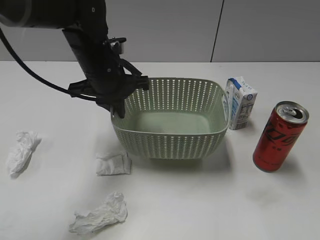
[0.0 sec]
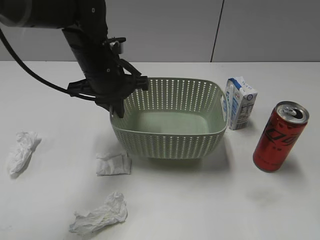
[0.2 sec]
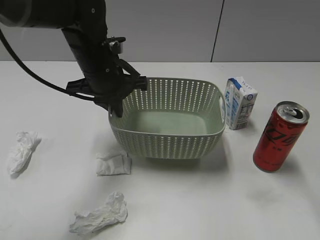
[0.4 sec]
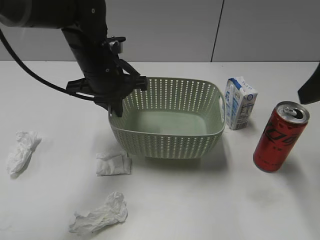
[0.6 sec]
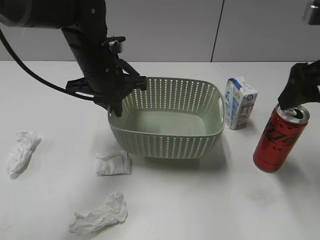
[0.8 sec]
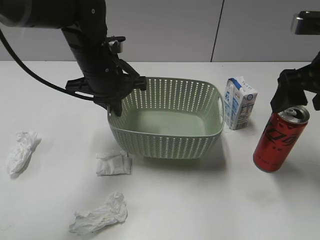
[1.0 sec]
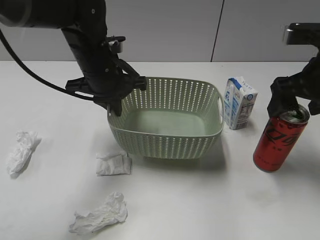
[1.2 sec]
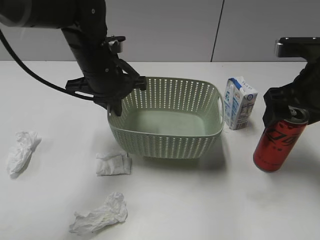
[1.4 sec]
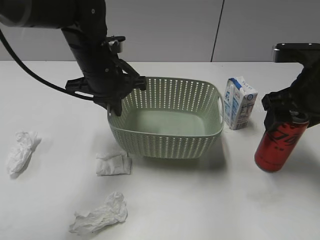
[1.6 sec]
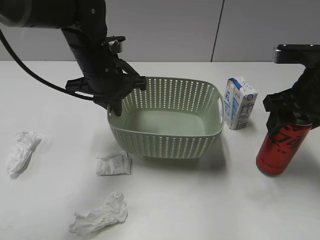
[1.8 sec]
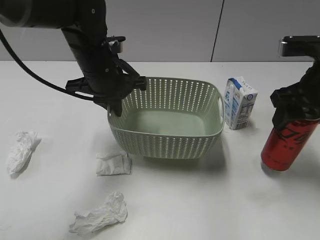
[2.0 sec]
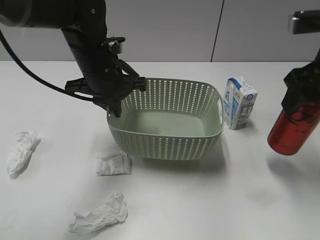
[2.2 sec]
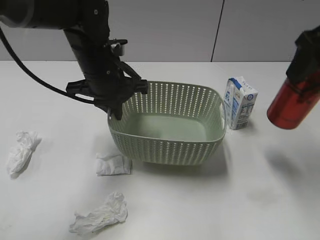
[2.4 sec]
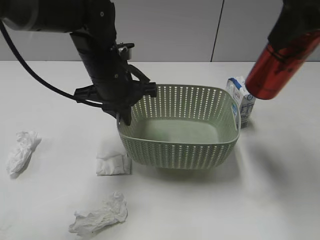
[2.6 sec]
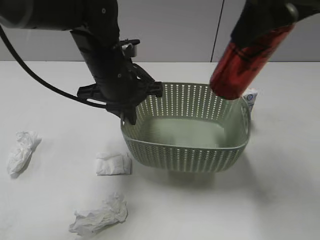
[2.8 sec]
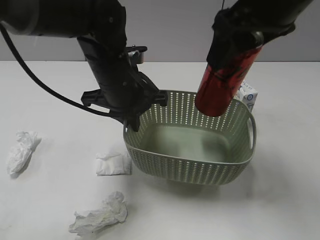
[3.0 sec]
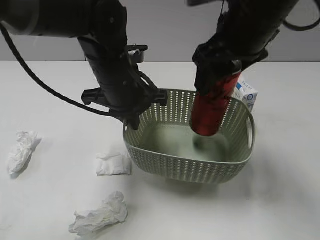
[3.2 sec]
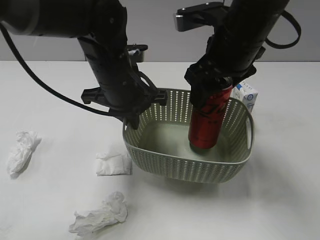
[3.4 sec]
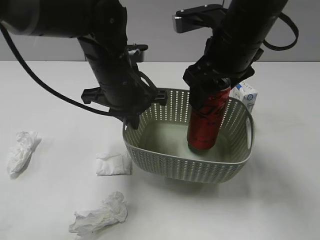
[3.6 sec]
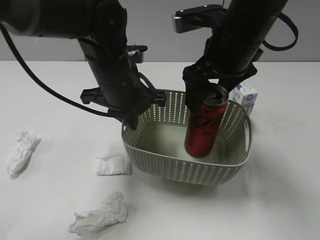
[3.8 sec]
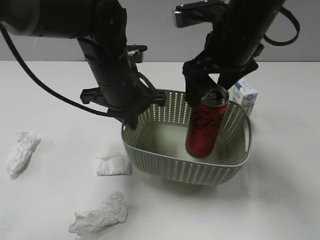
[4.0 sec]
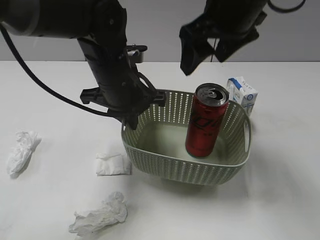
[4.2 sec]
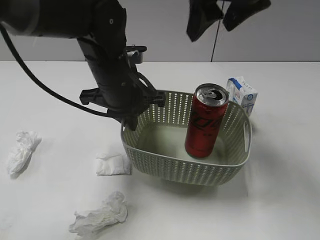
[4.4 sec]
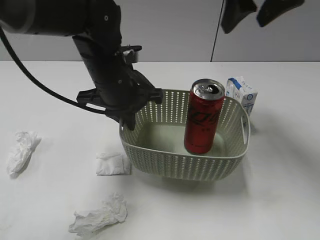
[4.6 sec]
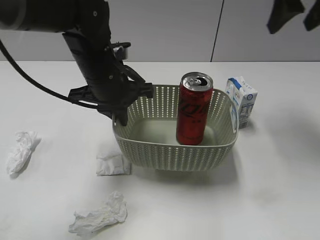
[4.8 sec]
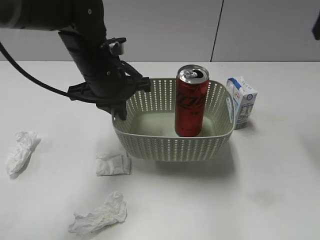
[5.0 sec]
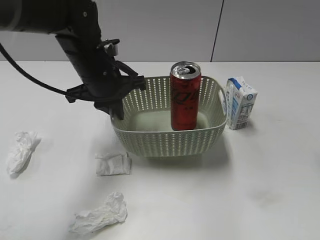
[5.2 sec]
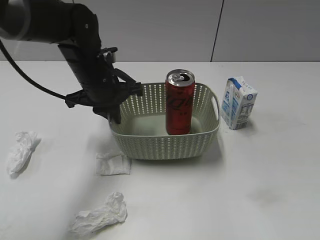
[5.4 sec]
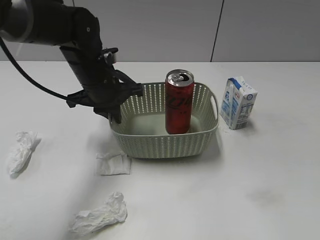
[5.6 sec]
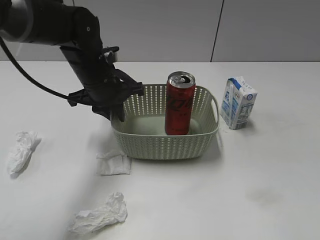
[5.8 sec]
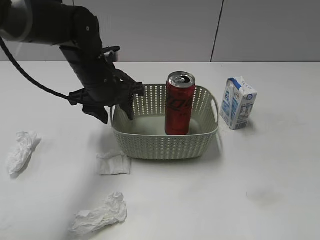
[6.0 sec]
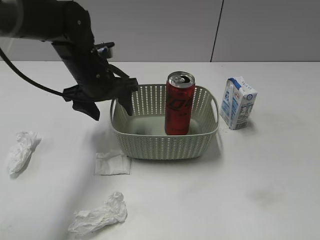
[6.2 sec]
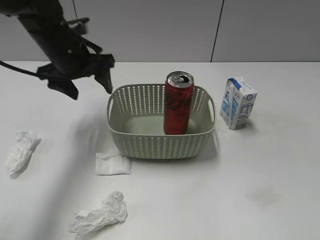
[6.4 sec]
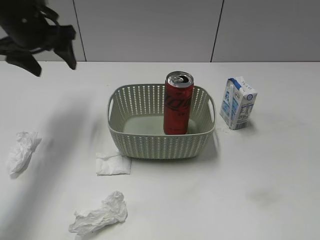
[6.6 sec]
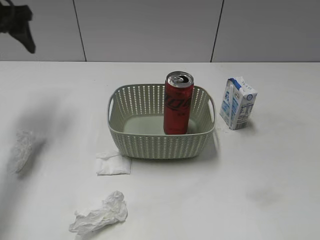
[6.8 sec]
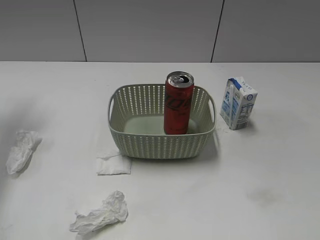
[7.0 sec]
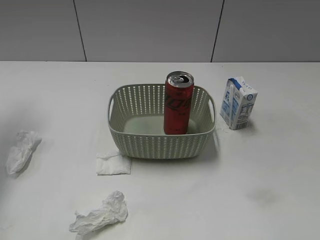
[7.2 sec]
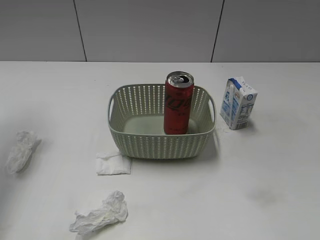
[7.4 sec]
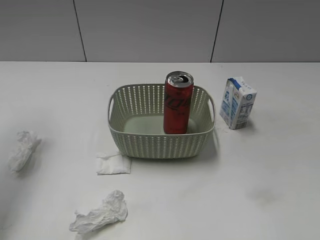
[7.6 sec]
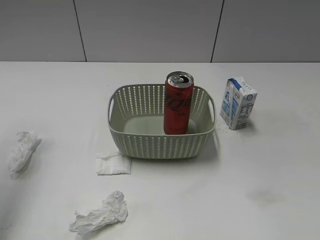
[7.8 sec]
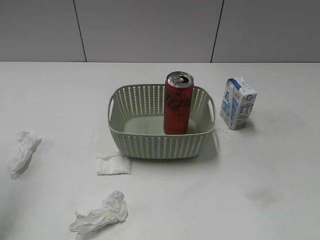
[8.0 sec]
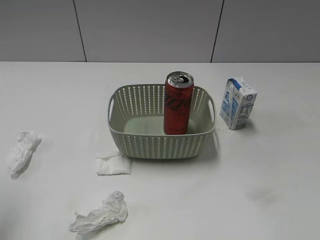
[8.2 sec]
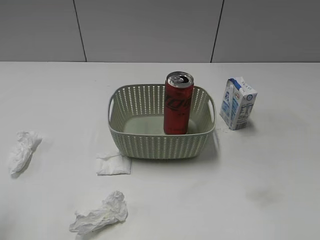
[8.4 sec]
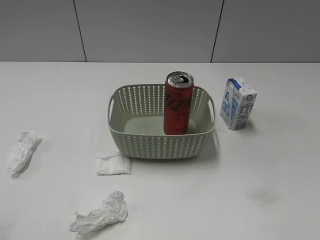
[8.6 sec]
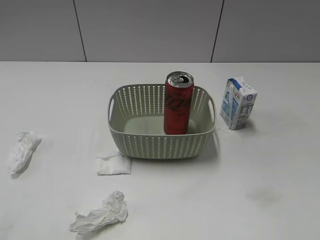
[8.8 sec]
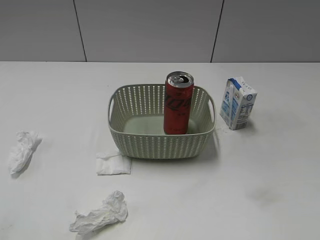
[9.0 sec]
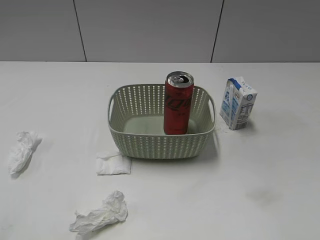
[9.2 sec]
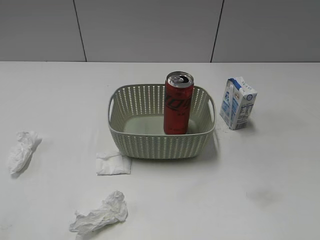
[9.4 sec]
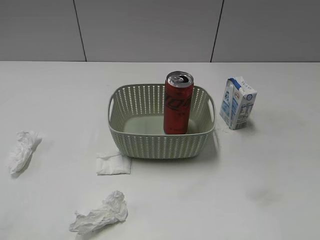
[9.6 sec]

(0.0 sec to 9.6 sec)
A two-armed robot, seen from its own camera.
Step, 0.6 sec - 1.8 sec: Grasp the cola can with right gripper.
Step, 2.0 sec - 4.2 sec: Place the cola can in the basket with right gripper.
Step, 4.4 sec - 6.0 sec: Place the basket on the table with left gripper.
0.0 sec - 1.6 sec: The right gripper shifts approximately 25 cm forward and downward, and opens, then closes once more.
1.6 sec - 3.2 sec: The left gripper ends up approximately 5 cm from where it was. The right gripper moves to the left and upward, approximately 15 cm, and closes.
3.2 sec - 4.8 sec: The right gripper heads to the right and forward, covering about 15 cm, and opens.
4.8 sec - 6.4 sec: The left gripper goes about 10 cm to the left and forward, and opens its fingers. Meanwhile the right gripper moves backward, approximately 30 cm.
6.4 sec - 8.0 sec: The left gripper goes about 30 cm upward, to the left and backward.
8.0 sec - 9.6 sec: The left gripper moves backward and downward, about 25 cm.

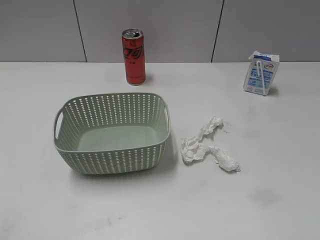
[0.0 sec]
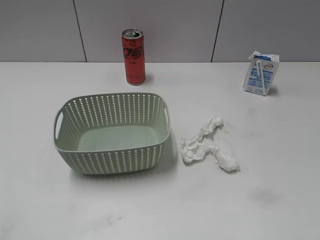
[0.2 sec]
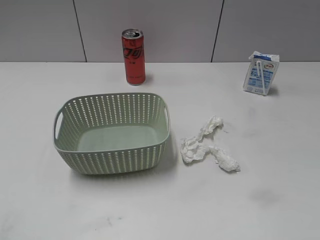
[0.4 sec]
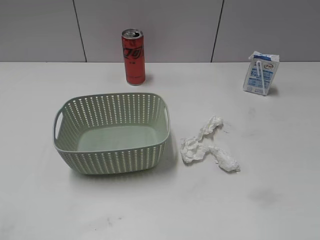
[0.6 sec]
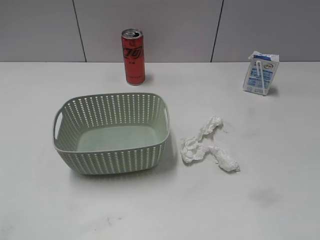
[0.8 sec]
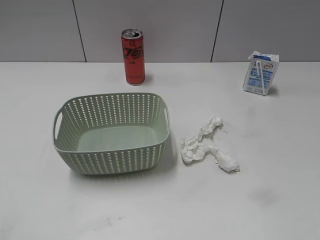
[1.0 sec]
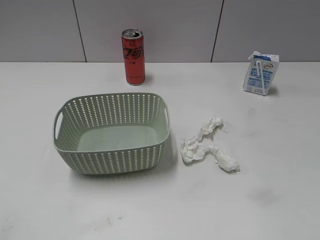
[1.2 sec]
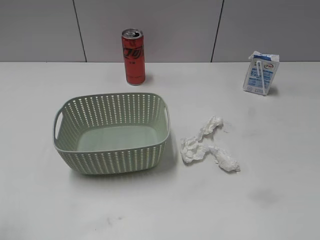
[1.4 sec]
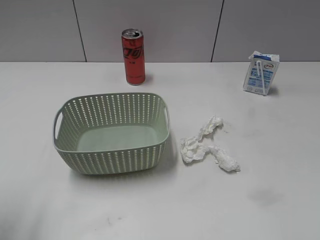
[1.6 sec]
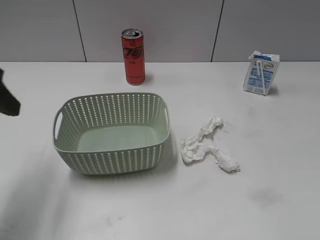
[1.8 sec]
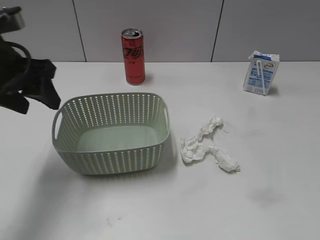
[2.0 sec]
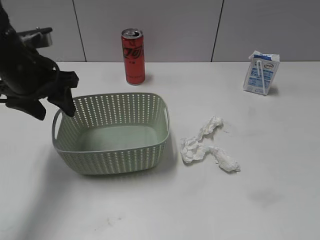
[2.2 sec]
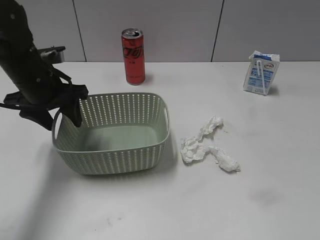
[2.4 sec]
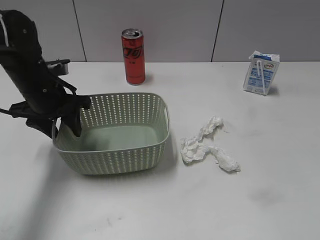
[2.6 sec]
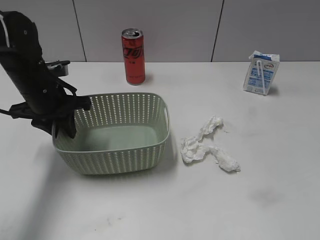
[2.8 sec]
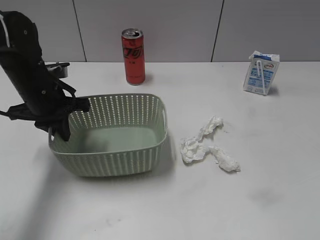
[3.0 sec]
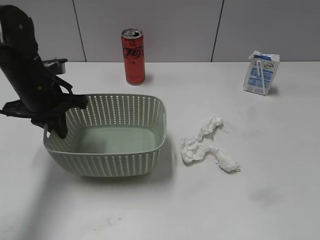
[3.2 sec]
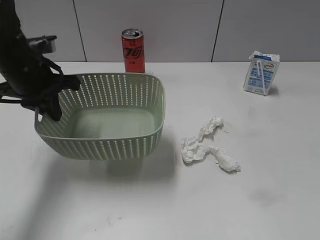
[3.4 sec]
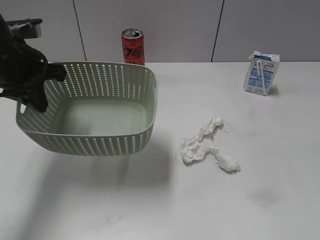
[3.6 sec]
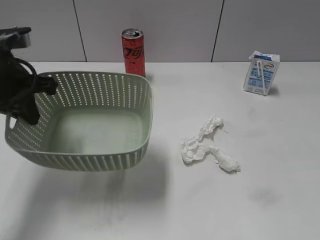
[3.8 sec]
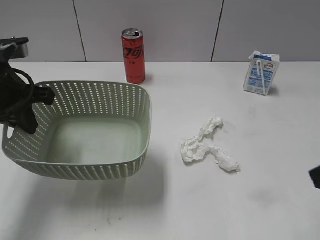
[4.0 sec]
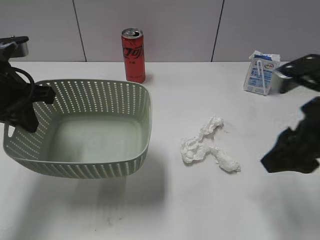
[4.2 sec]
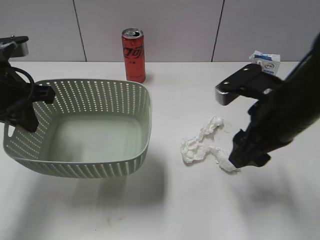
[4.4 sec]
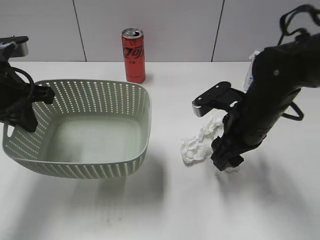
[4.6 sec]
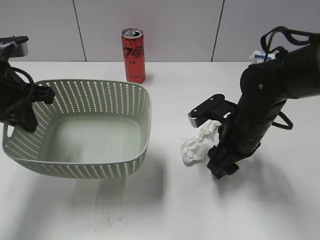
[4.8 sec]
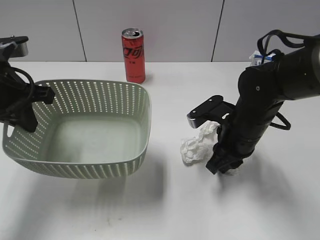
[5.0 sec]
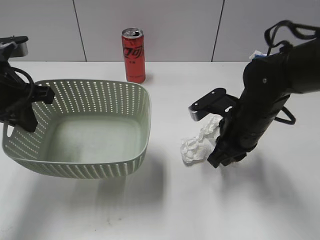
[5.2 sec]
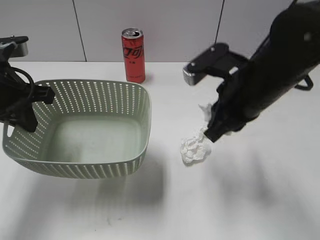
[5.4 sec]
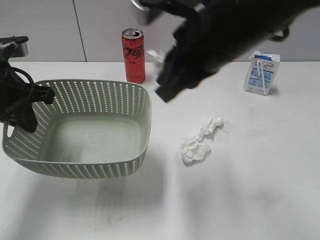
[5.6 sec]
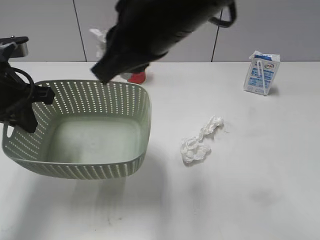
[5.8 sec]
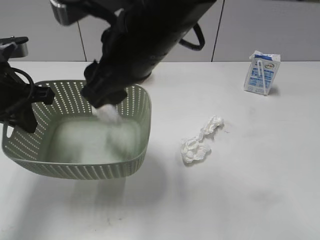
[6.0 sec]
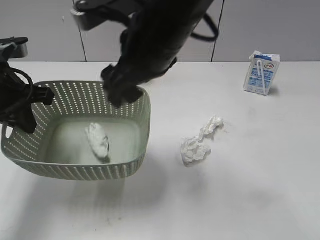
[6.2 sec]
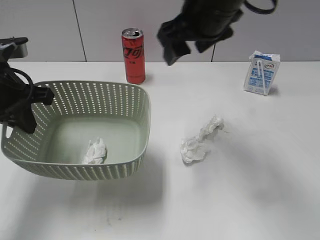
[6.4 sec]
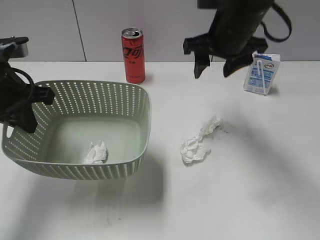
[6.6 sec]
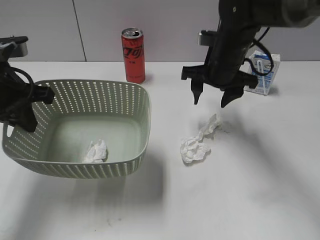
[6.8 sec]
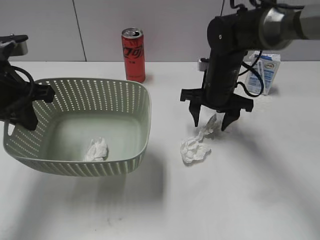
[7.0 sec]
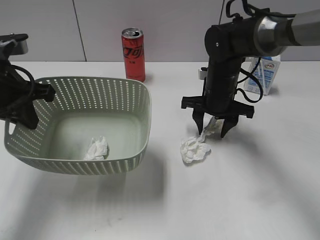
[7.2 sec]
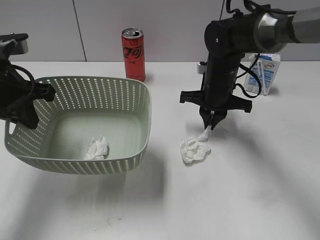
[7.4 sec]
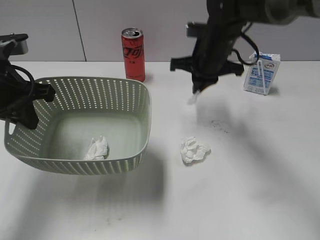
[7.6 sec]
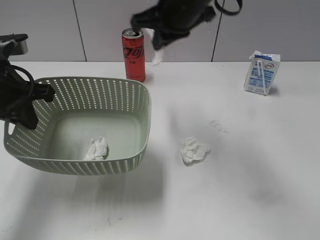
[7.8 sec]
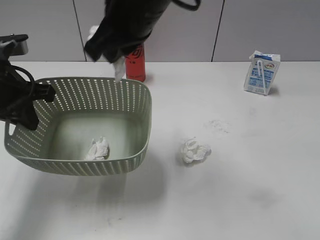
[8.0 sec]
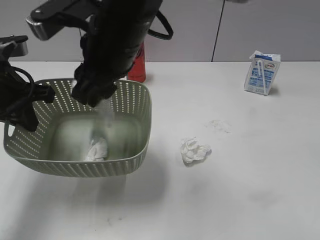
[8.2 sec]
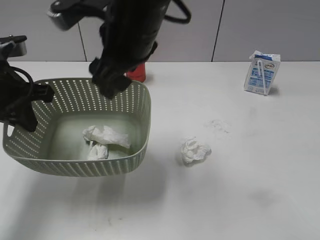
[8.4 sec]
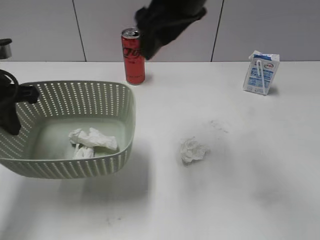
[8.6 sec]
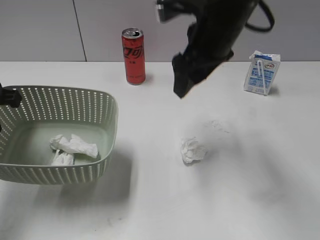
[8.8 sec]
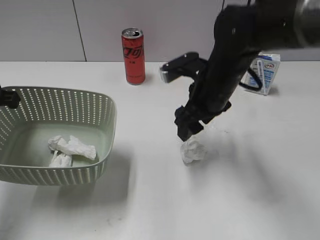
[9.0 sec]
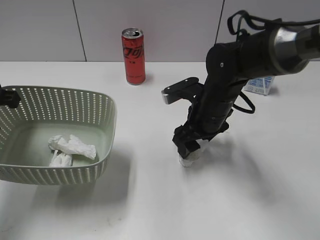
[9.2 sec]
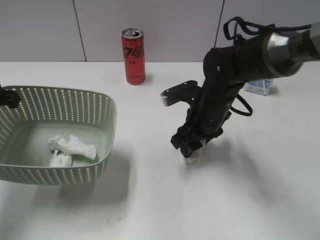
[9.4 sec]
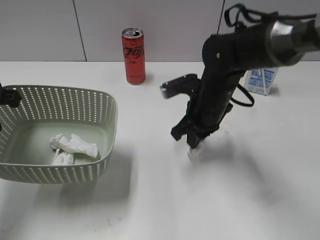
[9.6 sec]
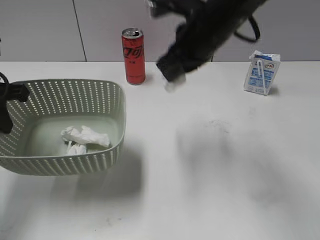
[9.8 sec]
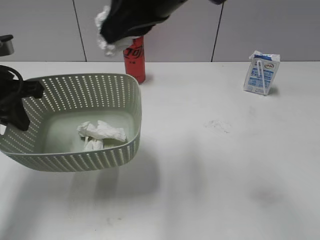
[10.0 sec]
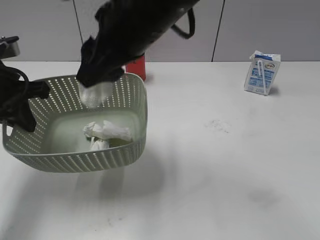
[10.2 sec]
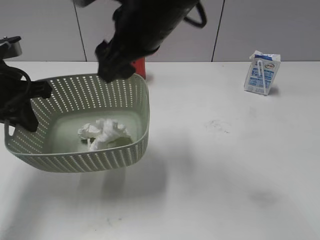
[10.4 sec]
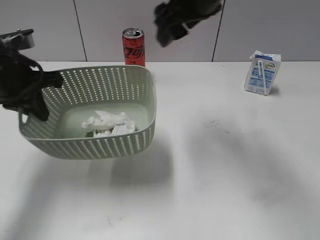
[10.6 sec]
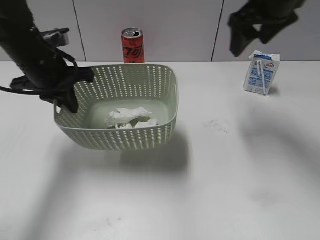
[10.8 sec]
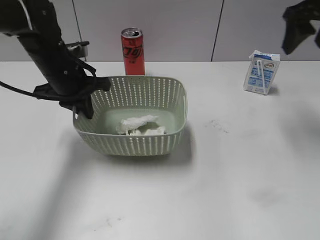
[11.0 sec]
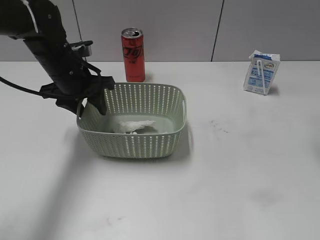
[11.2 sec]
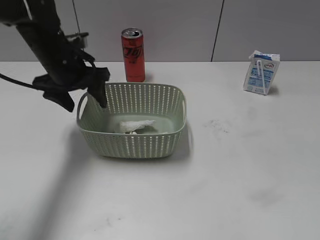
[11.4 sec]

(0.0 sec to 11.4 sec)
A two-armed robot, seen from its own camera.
Step, 1.8 sec - 3.0 sec: Grasp the basket with left gripper.
Step, 3.2 sec - 3.8 sec: Lift the basket with left gripper.
Step, 4.0 sec - 5.2 sec: Grasp the waste paper with right gripper.
Step, 5.4 sec - 6.0 sec: Place the waste paper in the basket with right gripper.
Step, 6.2 sec - 7.4 sec: Grasp the waste paper with right gripper.
Step, 7.6 sec - 8.4 sec: Place the waste paper in the basket with right gripper.
Step, 8.6 sec - 9.6 sec: Grasp the waste paper with right gripper.
Step, 9.8 sec - 10.4 sec: Place the waste paper in the basket with right gripper.
Step, 10.6 sec - 11.4 sec: Place the basket on the table with left gripper.
1.4 sec - 2.8 sec: The left gripper shifts some 30 cm forward, downward and to the right, and closes its fingers.
2.8 sec - 4.2 sec: The left gripper heads upward and backward, covering roughly 10 cm, and closes up. The right gripper moves forward and to the left, approximately 25 cm.
4.2 sec - 5.6 sec: The right gripper shifts some 15 cm to the left, moves about 15 cm downward and comes back, and closes.
5.6 sec - 7.2 sec: The right gripper shifts approximately 25 cm downward and forward, and opens its fingers.
7.2 sec - 8.6 sec: The right gripper heads upward, covering roughly 20 cm, and closes, then opens again.
8.6 sec - 10.0 sec: The right gripper travels downward and back again, some 20 cm each way, and closes up.
10.0 sec - 11.4 sec: The left gripper is displaced forward and to the right by approximately 15 cm, and opens up, while the right gripper shifts approximately 30 cm to the right, and opens its fingers.
